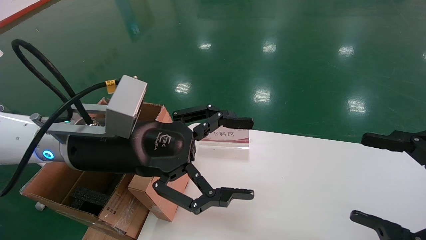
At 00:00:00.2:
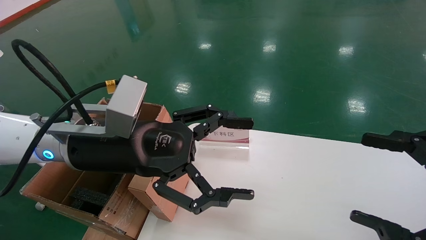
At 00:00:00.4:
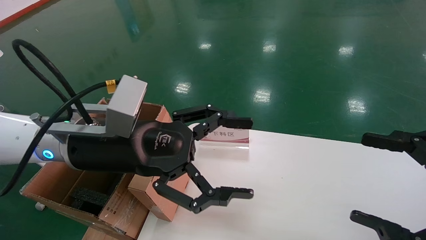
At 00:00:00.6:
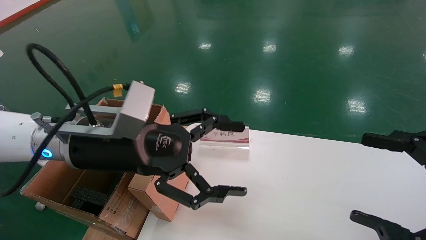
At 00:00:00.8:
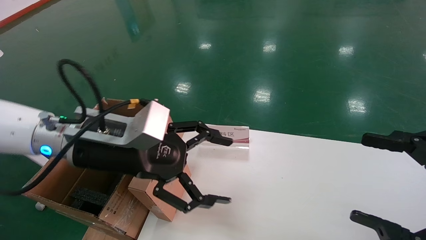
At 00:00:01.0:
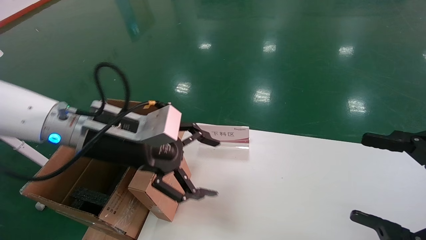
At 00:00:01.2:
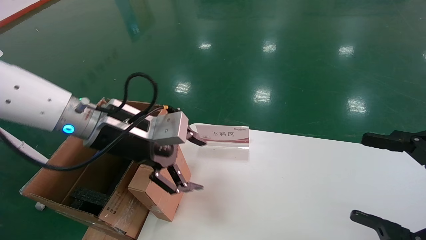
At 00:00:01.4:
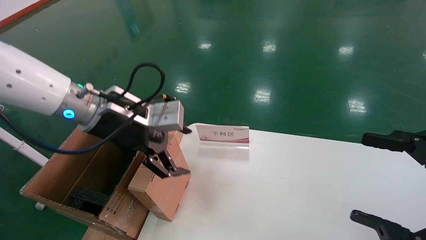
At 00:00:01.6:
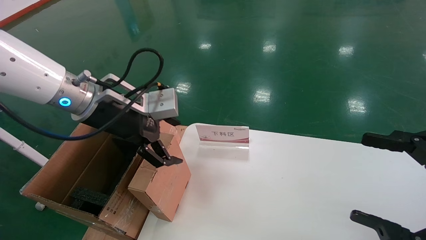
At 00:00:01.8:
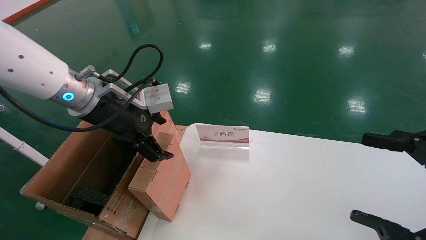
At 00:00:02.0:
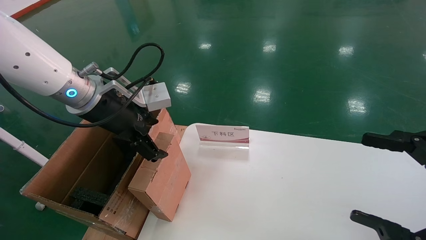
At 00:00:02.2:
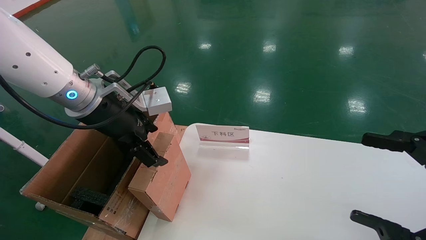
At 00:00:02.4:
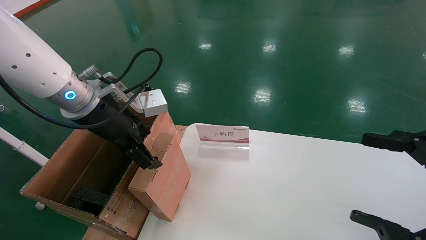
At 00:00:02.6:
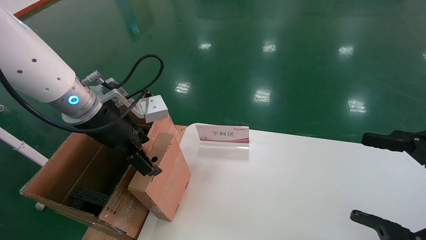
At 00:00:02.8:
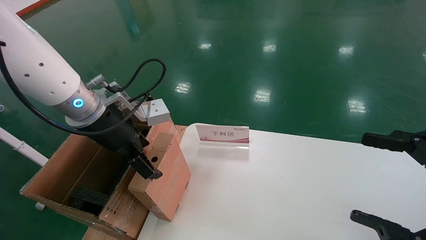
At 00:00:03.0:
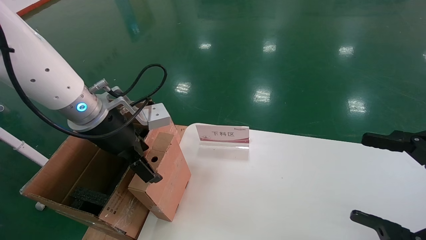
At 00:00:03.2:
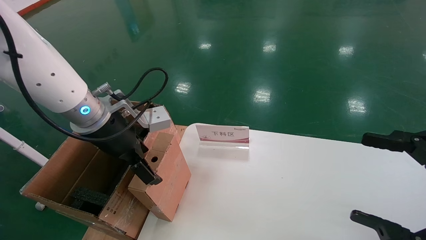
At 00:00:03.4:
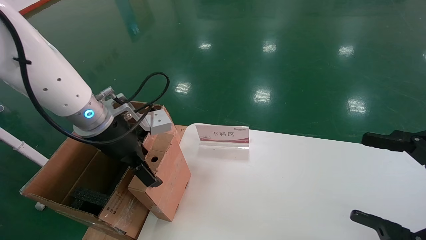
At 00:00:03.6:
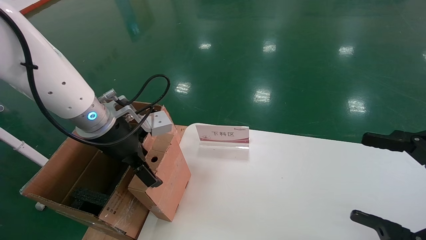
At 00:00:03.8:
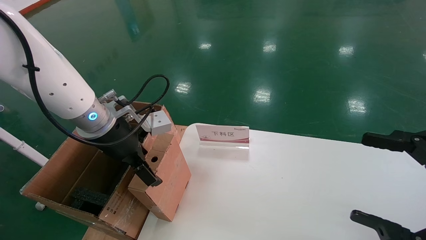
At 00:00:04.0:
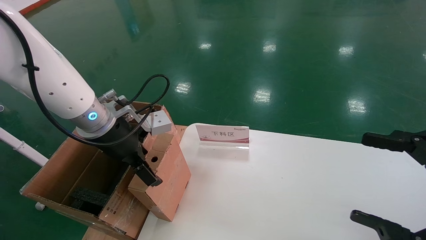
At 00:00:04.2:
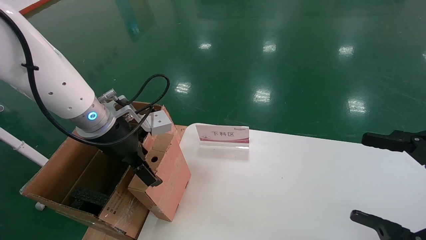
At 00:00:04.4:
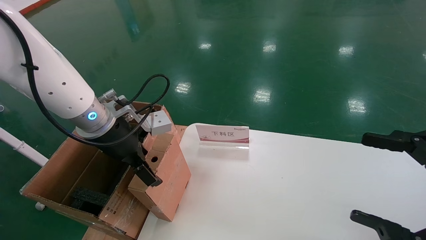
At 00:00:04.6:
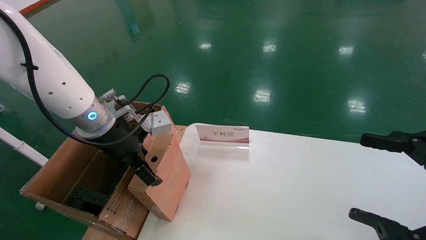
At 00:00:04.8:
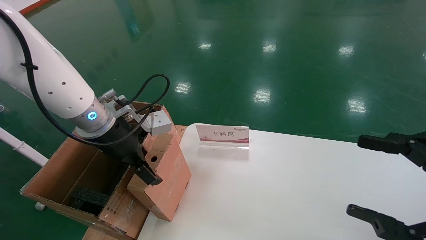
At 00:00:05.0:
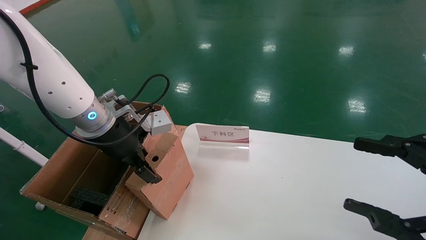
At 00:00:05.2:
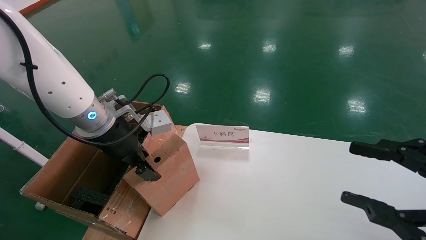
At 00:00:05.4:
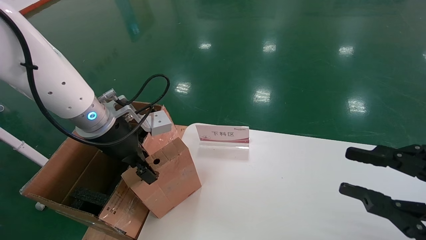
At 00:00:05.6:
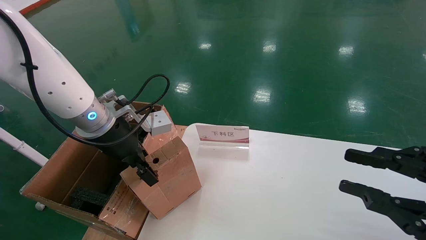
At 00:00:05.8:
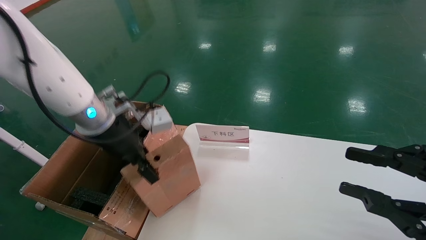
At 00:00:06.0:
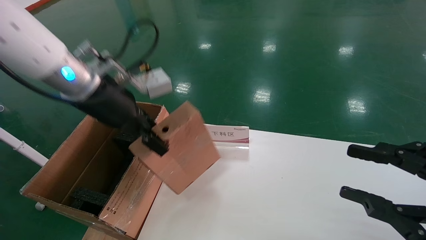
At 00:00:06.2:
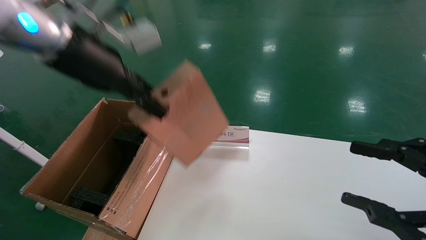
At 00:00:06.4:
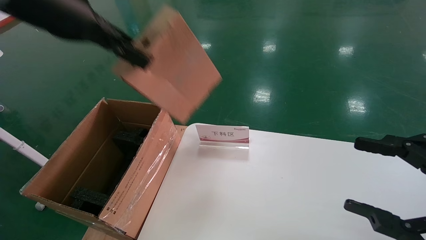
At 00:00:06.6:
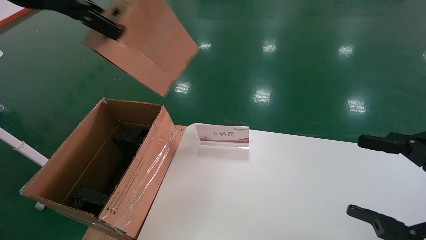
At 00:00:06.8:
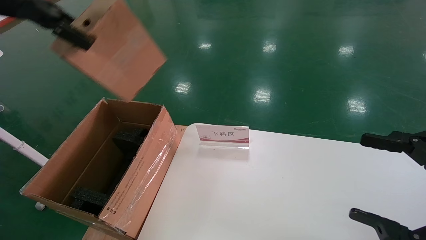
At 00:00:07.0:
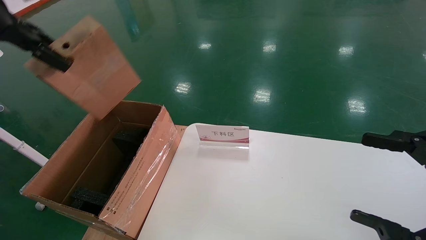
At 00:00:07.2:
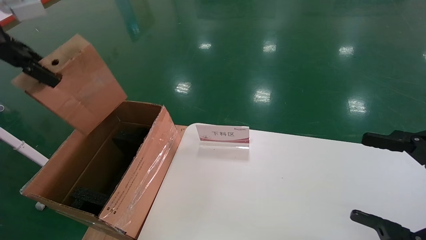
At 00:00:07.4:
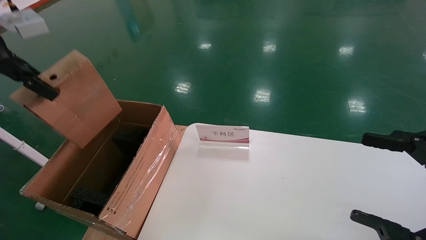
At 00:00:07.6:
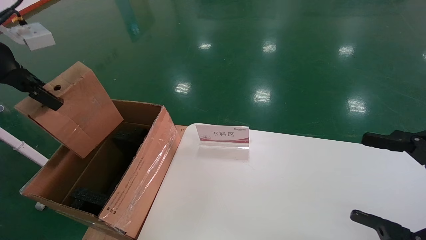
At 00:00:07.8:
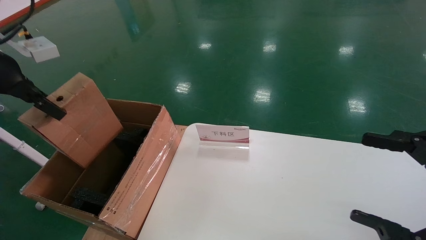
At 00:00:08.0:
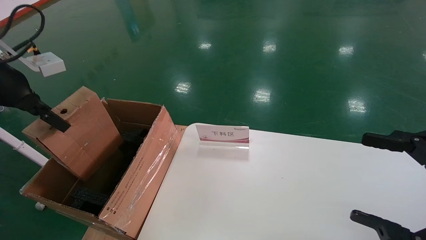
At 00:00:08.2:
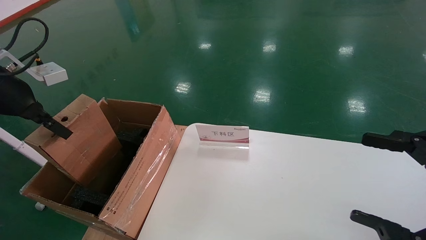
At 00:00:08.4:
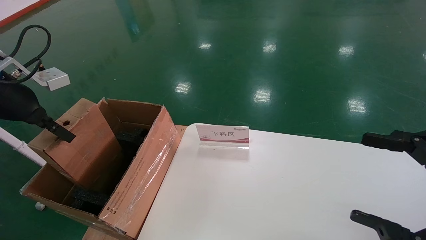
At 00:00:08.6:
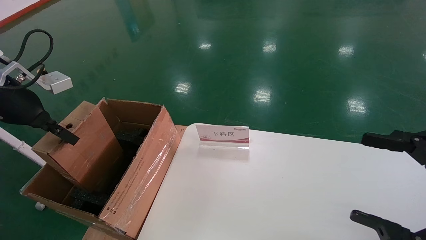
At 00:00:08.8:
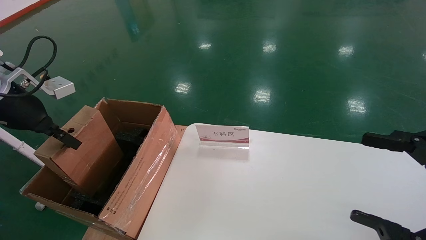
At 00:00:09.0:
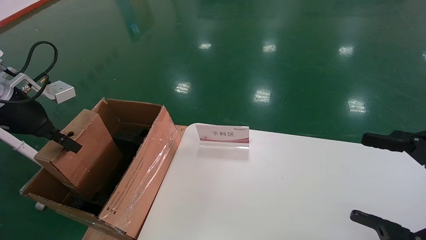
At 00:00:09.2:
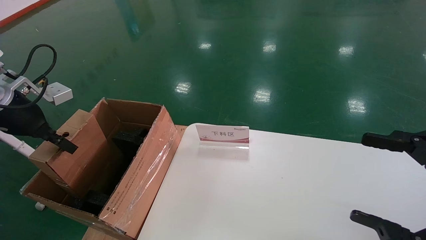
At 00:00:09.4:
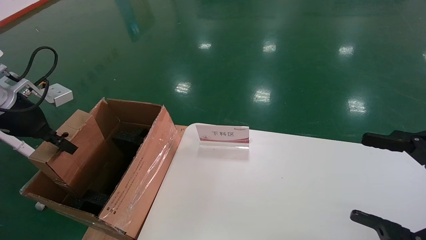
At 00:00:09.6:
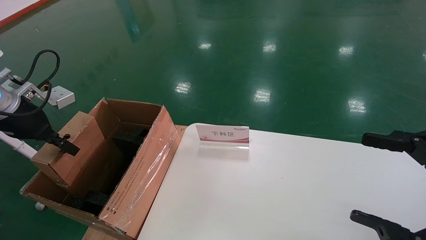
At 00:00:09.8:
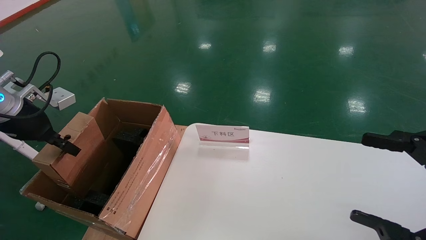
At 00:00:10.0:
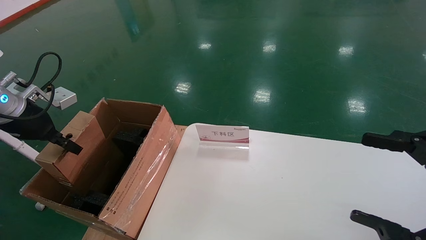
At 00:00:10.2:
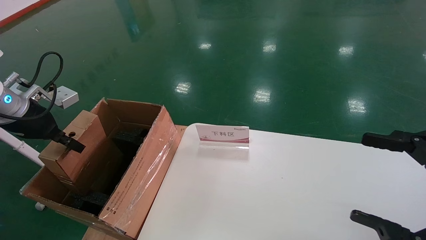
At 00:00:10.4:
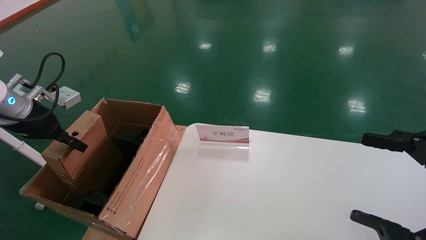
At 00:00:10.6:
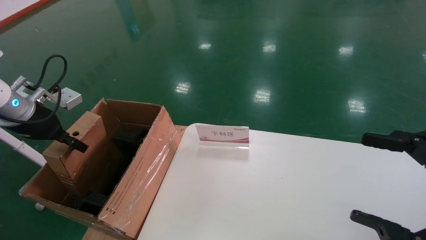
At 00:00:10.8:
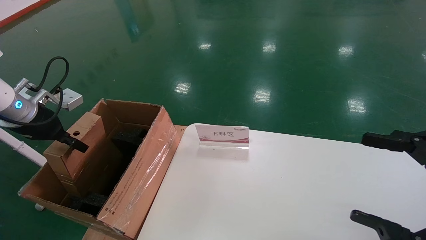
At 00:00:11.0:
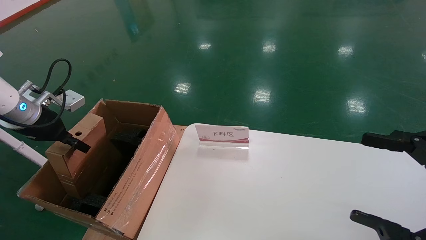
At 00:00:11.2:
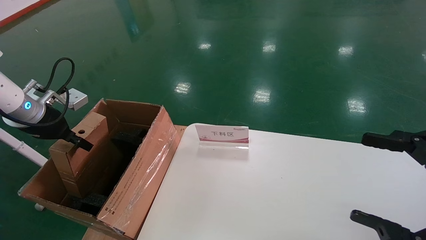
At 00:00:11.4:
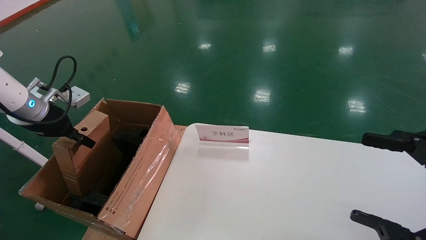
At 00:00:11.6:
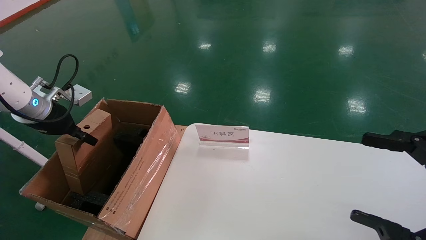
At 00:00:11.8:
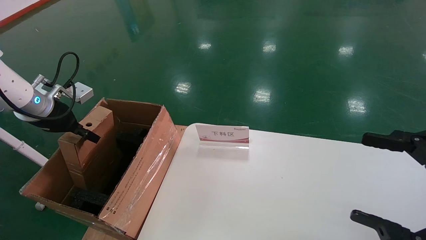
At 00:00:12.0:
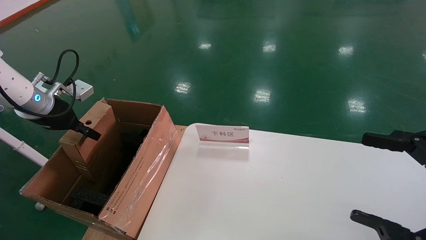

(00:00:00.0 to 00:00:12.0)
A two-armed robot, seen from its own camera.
Task of the whole recording: pick up the small cardboard box and load it into the large cardboard box.
Step, 00:00:01.0 - 00:00:05.2: Pick up the mouse and power cord box.
00:00:00.0 - 00:00:01.6: The left gripper shifts approximately 5 cm forward.
00:00:03.0 - 00:00:04.4: There are only small adjustments of the grippers.
00:00:04.4 - 00:00:06.0: The left gripper shifts roughly 10 cm upward, and closes up. Meanwhile the right gripper closes.
00:00:06.0 - 00:00:07.6: The left gripper is displaced to the left by some 20 cm. Meanwhile the right gripper opens up.
00:00:07.6 - 00:00:09.0: The left gripper travels downward by approximately 10 cm.
00:00:09.0 - 00:00:10.4: There are only small adjustments of the grippers.
00:00:10.4 - 00:00:12.0: The grippers stay close to where they were, moving slightly.

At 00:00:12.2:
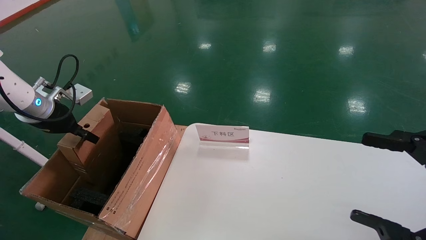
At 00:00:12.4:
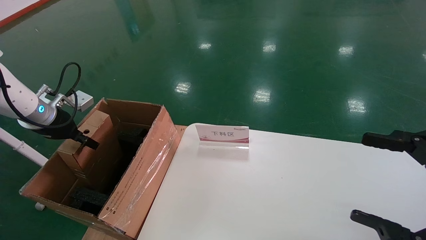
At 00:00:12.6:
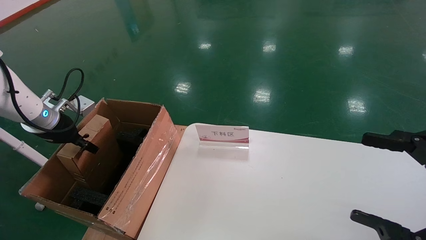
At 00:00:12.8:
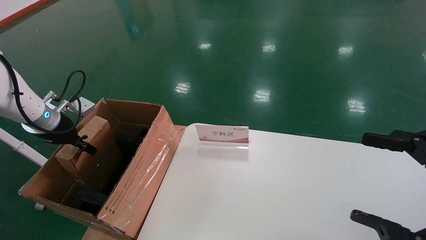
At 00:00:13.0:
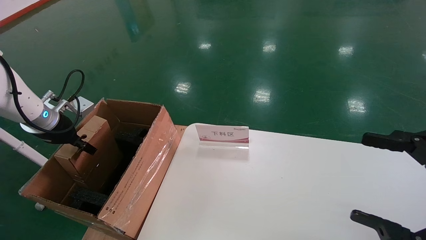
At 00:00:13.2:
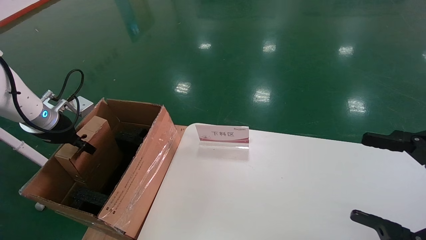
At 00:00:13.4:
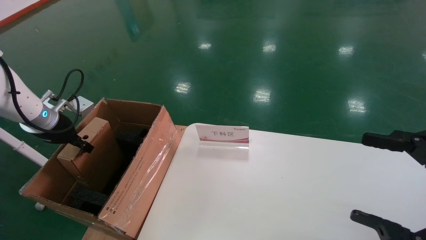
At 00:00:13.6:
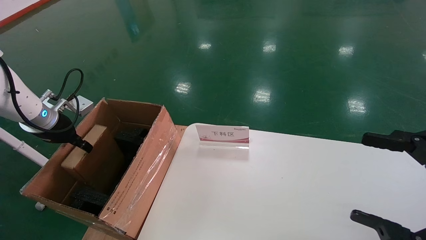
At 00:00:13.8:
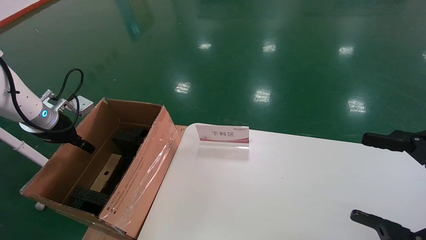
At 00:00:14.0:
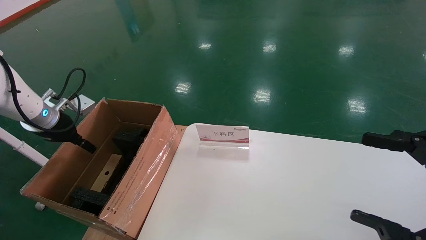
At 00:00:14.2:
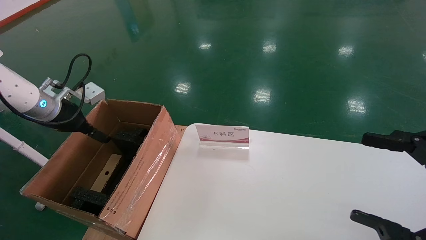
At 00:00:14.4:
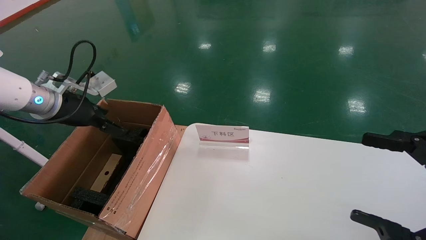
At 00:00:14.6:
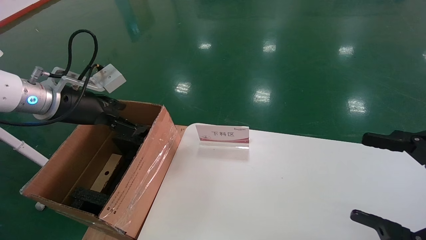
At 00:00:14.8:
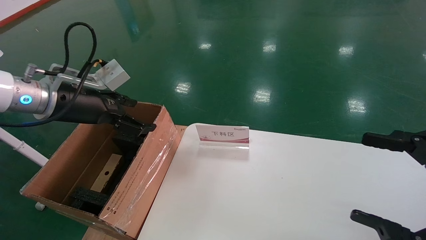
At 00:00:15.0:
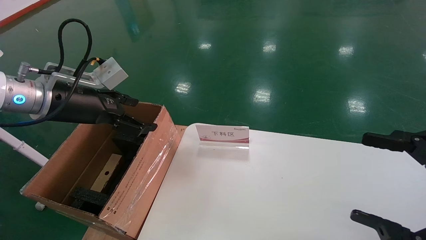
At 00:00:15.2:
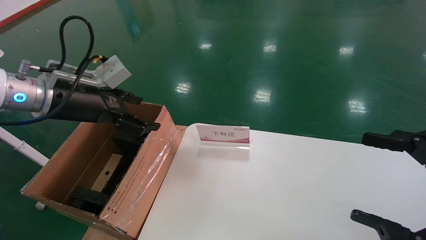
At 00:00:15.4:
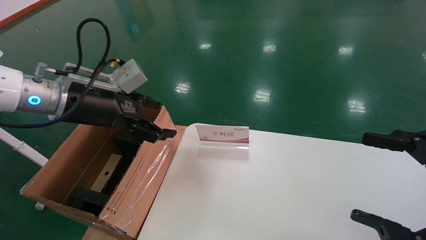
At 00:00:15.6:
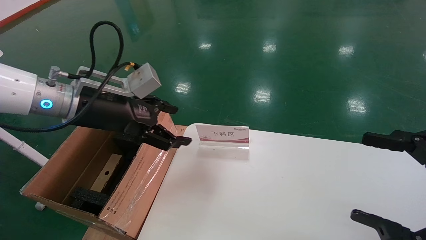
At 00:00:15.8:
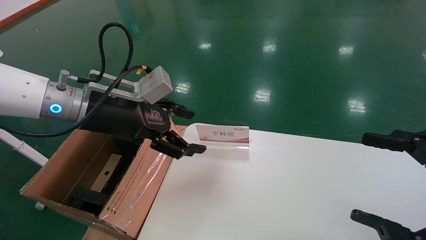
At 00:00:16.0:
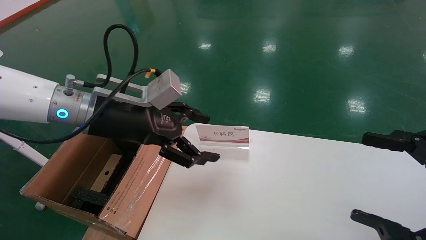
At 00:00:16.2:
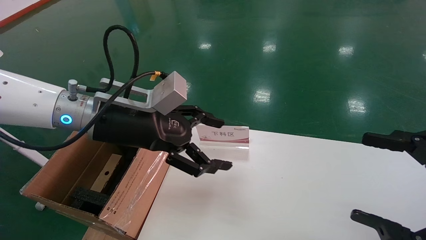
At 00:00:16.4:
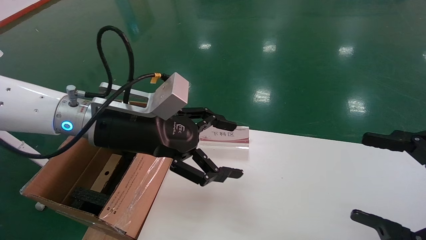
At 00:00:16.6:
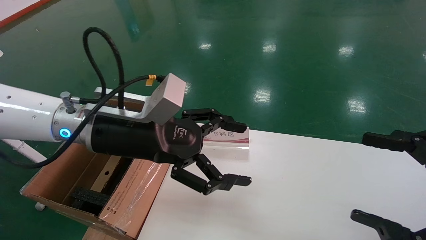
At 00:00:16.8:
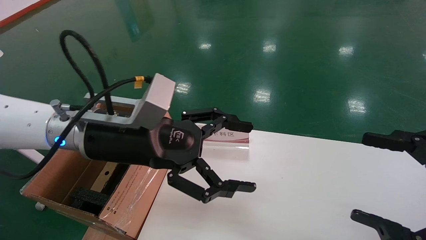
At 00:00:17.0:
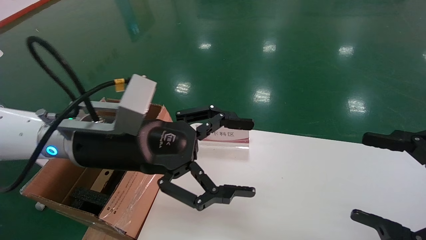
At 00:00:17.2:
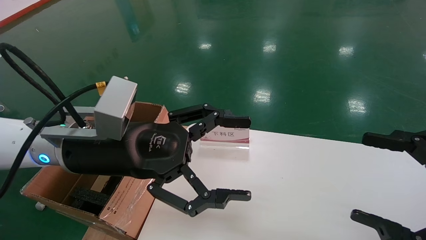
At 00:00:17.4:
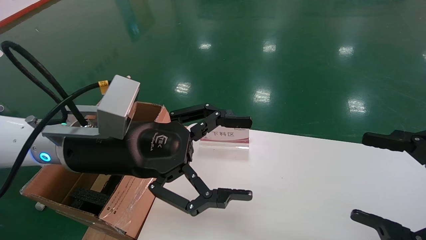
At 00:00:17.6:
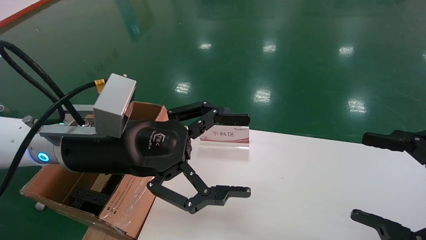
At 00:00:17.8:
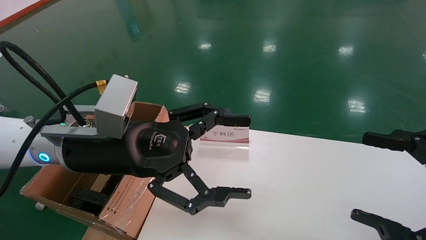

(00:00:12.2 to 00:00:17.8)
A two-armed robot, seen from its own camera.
Task of the whole recording: pick up the small cardboard box and load it into the large cardboard box.
00:00:12.2 - 00:00:13.6: The grippers move only a little.
00:00:13.6 - 00:00:15.0: The left gripper goes some 15 cm to the right, upward and backward, and opens.
00:00:15.0 - 00:00:16.4: The left gripper travels to the right by about 15 cm.
